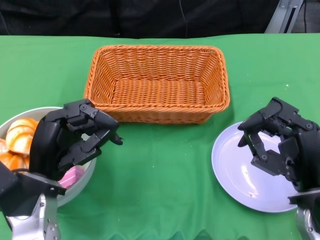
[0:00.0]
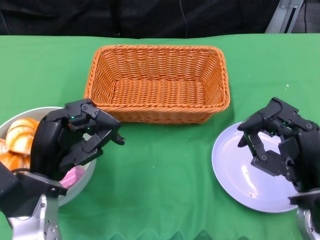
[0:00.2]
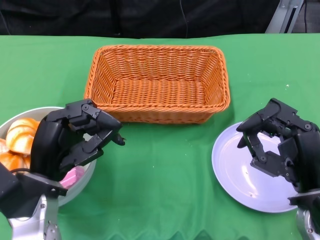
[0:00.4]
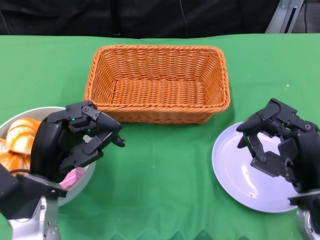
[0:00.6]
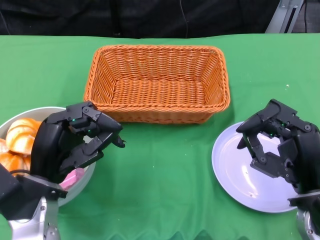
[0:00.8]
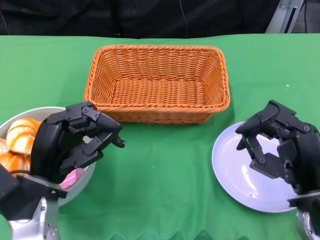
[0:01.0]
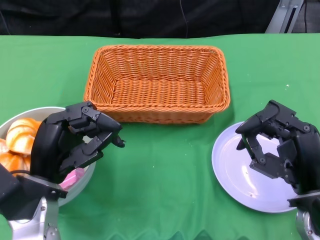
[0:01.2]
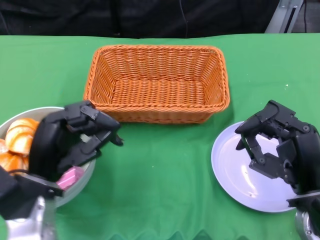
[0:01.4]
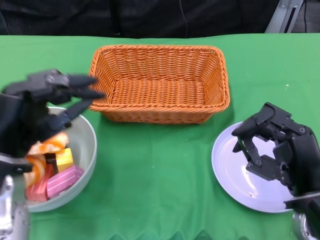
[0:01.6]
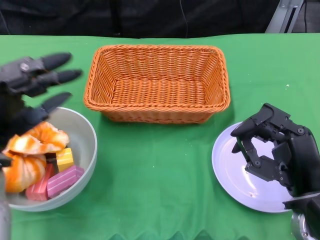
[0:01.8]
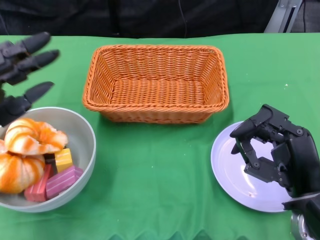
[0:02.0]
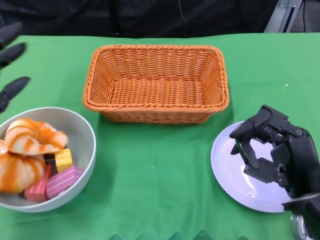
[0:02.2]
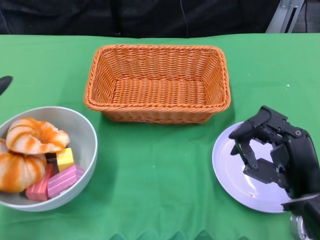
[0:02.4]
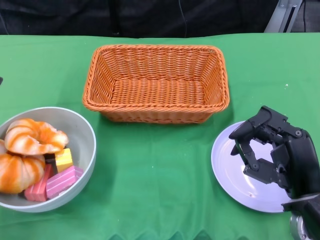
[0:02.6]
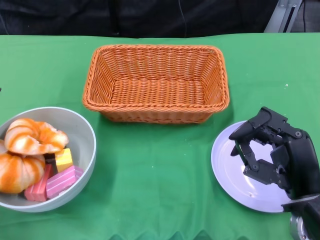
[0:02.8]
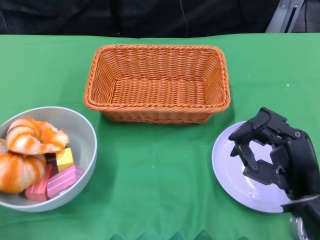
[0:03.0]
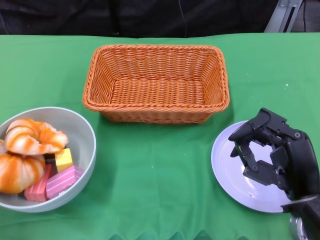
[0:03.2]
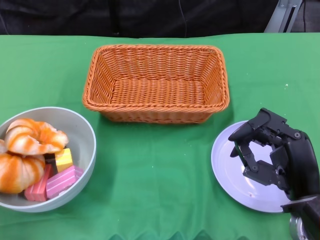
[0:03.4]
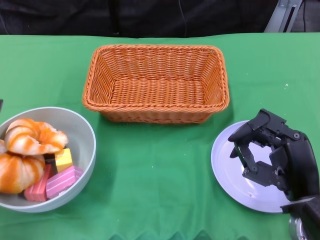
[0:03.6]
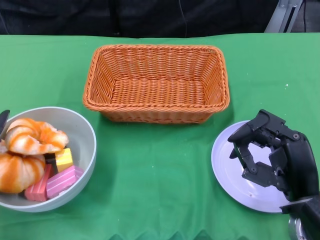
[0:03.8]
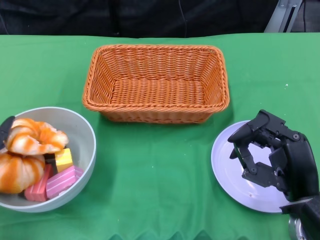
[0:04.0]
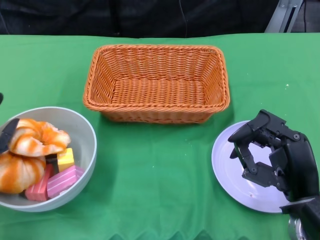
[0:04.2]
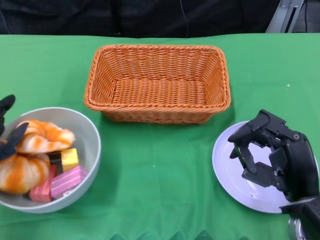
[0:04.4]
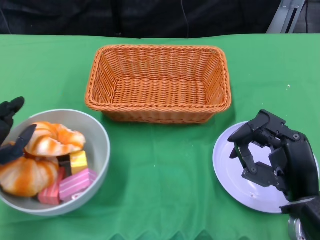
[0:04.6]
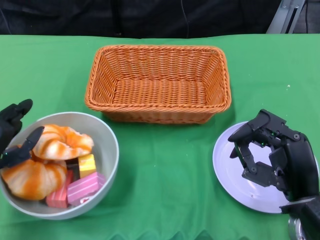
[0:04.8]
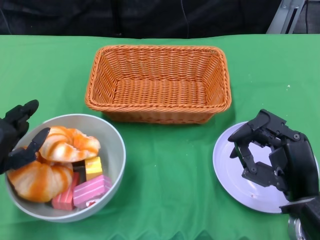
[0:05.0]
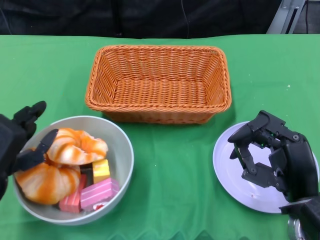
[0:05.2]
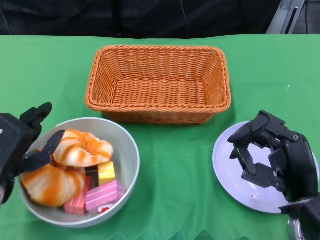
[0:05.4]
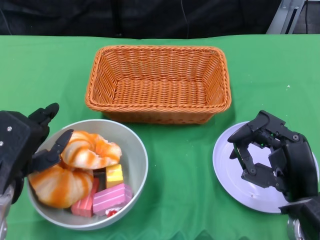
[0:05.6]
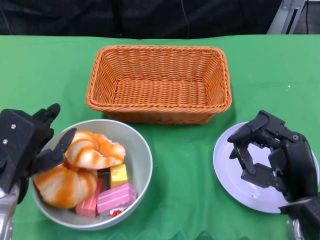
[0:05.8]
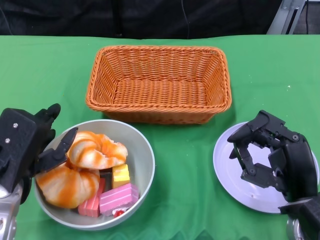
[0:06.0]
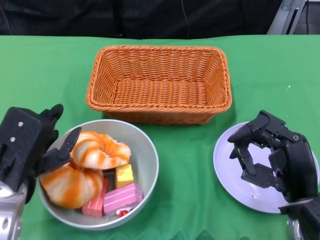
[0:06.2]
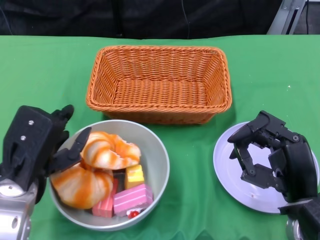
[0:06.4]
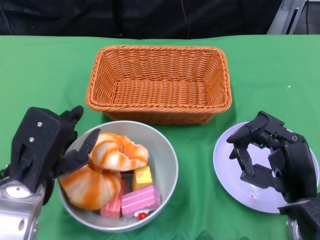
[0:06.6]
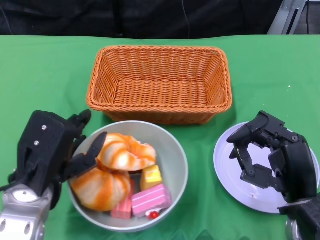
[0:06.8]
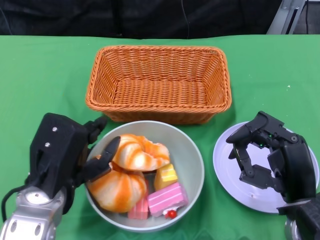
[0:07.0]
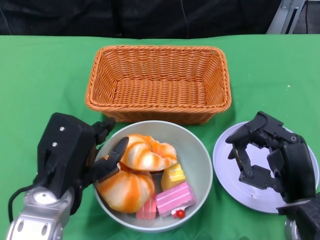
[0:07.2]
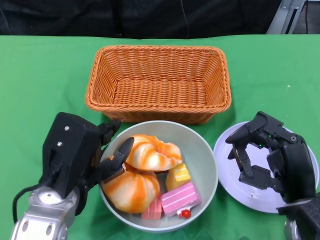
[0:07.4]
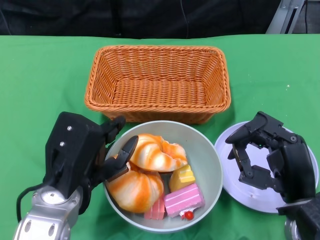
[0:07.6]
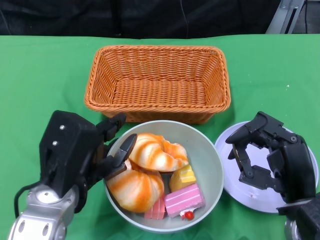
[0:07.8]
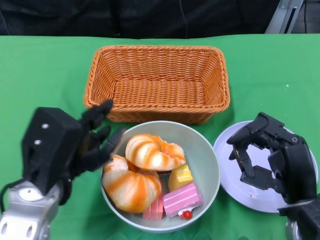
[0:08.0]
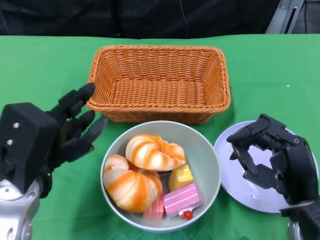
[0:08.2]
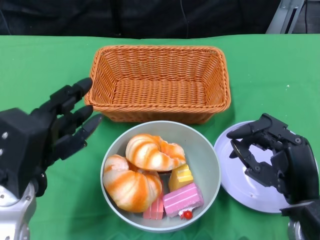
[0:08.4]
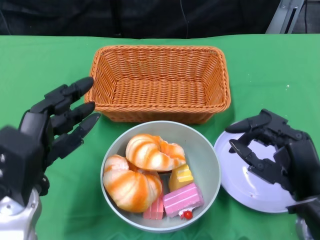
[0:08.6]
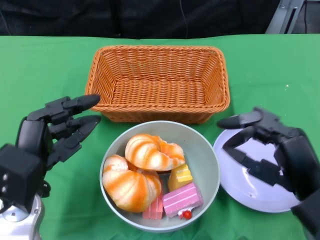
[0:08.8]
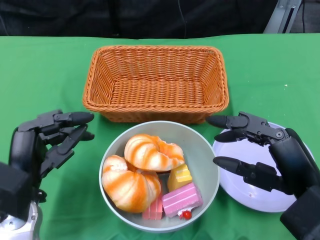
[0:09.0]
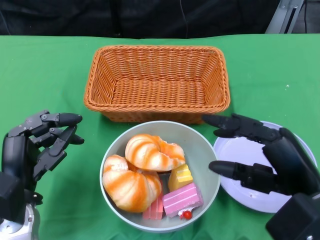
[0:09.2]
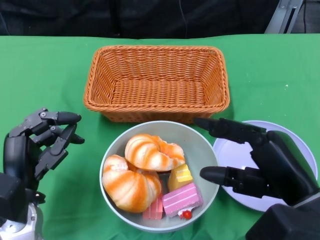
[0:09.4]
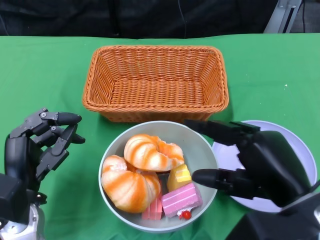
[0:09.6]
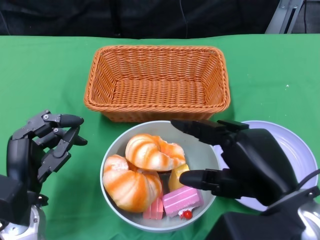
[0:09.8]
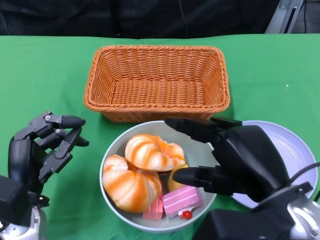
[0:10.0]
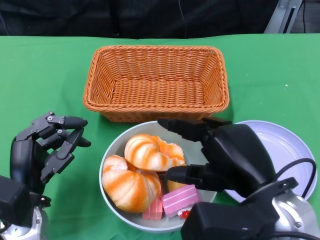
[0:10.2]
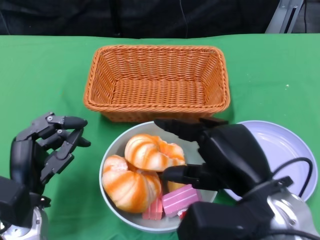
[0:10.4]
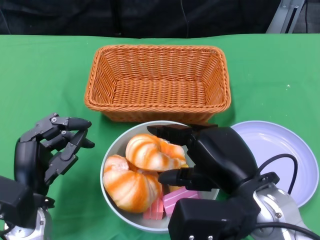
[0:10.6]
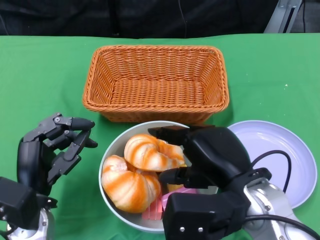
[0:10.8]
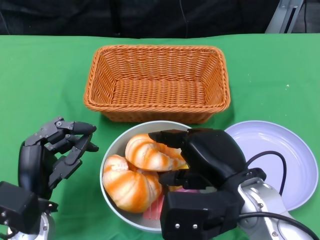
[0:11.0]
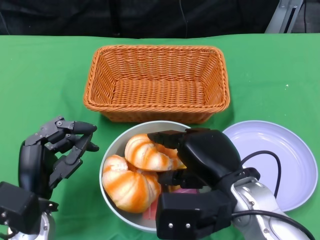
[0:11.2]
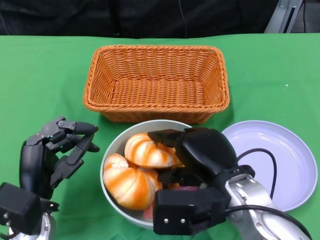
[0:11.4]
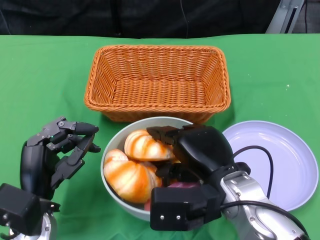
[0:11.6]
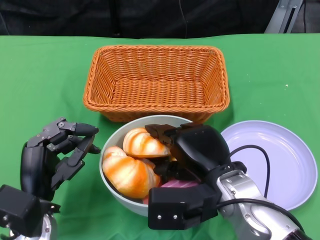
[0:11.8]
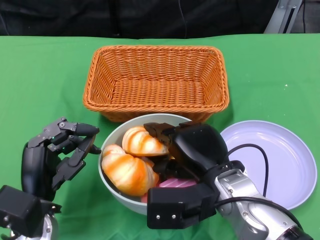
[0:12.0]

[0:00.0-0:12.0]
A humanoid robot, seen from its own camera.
Step, 0:00.0 to 0:08.4: Push the bowl to the center of the table using the left gripper.
0:01.6 to 0:03.0: The left hand travels to the left by about 10 cm.
0:03.0 to 0:04.4: The hands move only a little.
0:04.4 to 0:06.0: The left hand goes roughly 5 cm to the right.
0:06.0 to 0:07.6: The left hand heads to the right, covering approximately 5 cm.
0:07.6 to 0:09.0: The right hand ends up some 5 cm from where it was, while the left hand heads to the left and downward, covering about 10 cm.
0:09.0 to 0:10.4: The right hand goes about 5 cm to the left.
0:10.4 to 0:12.0: The right hand moves downward and forward, approximately 10 cm.

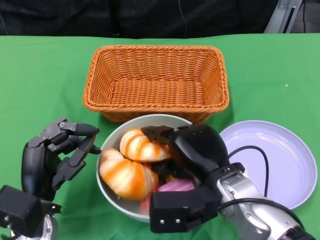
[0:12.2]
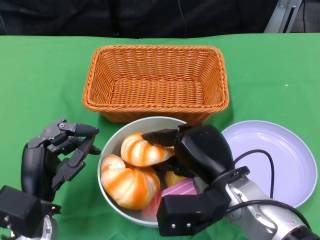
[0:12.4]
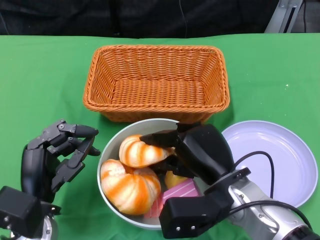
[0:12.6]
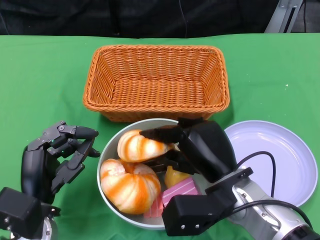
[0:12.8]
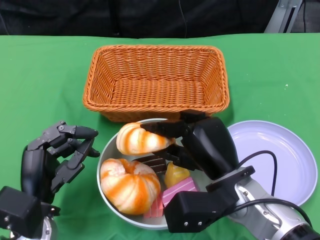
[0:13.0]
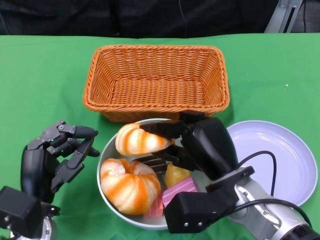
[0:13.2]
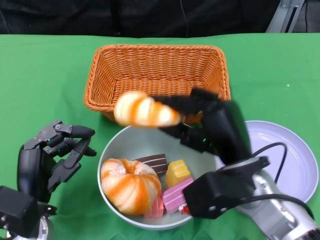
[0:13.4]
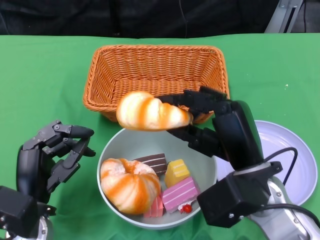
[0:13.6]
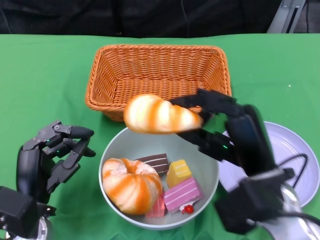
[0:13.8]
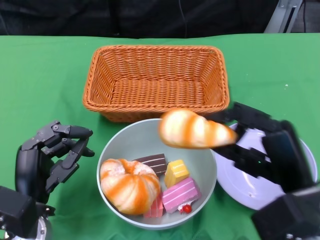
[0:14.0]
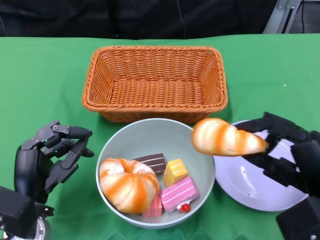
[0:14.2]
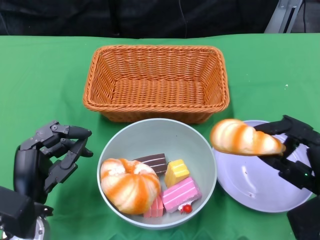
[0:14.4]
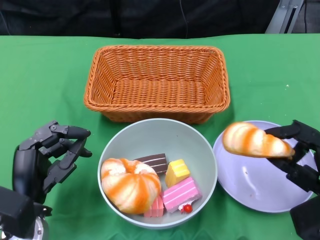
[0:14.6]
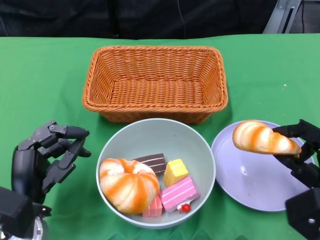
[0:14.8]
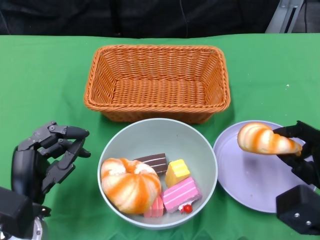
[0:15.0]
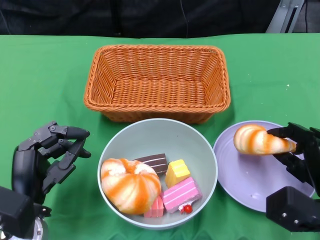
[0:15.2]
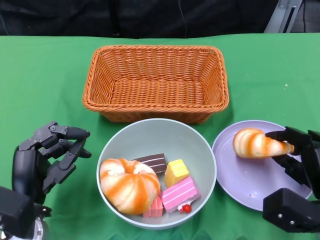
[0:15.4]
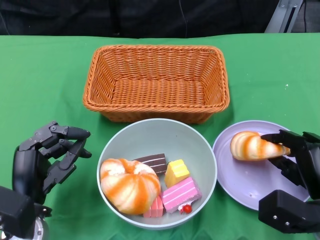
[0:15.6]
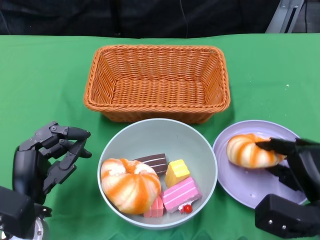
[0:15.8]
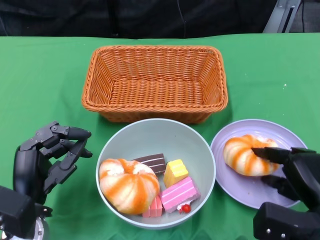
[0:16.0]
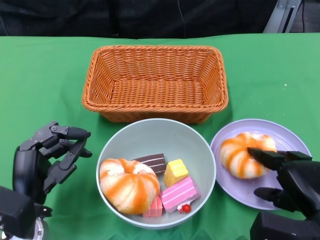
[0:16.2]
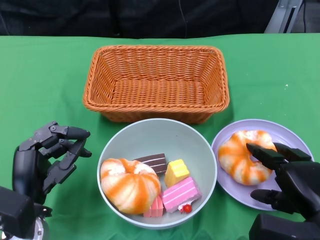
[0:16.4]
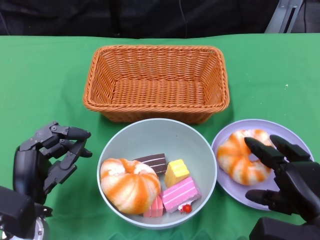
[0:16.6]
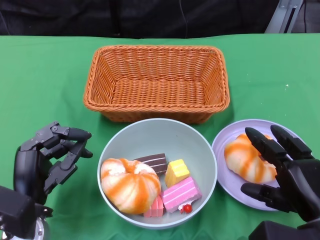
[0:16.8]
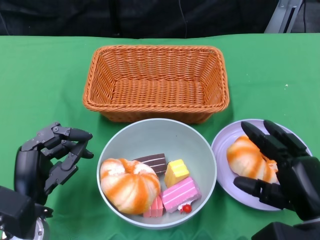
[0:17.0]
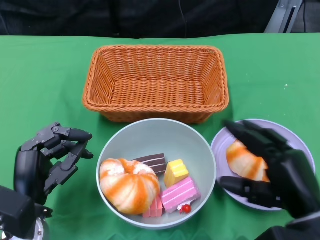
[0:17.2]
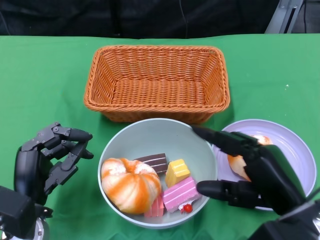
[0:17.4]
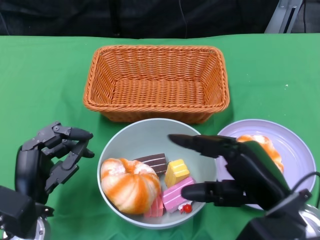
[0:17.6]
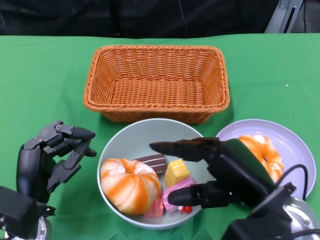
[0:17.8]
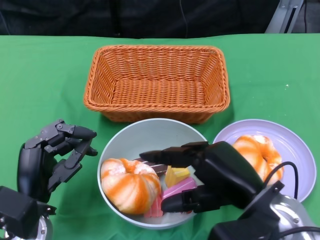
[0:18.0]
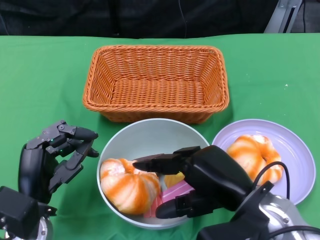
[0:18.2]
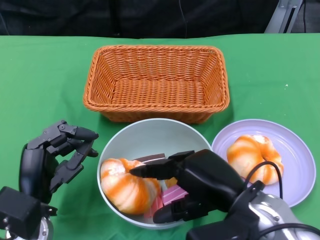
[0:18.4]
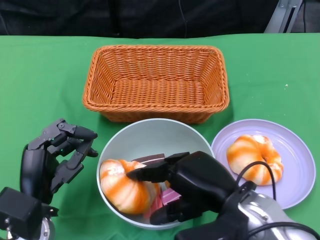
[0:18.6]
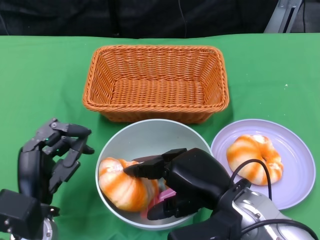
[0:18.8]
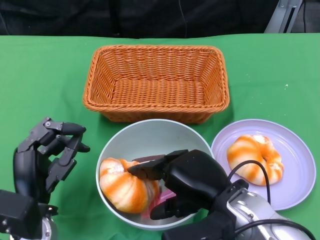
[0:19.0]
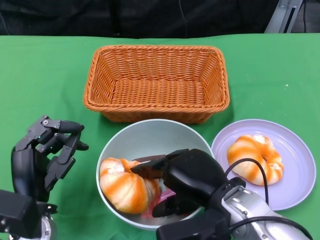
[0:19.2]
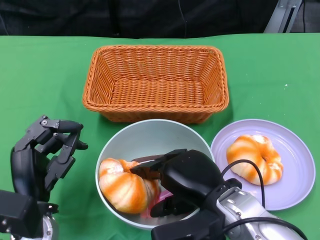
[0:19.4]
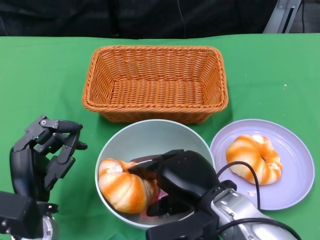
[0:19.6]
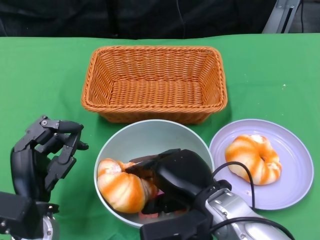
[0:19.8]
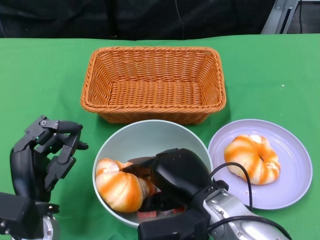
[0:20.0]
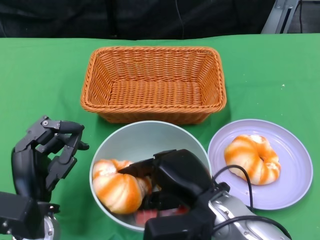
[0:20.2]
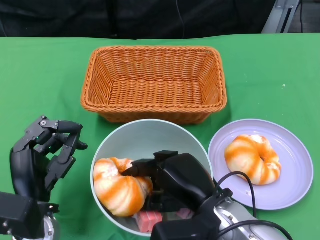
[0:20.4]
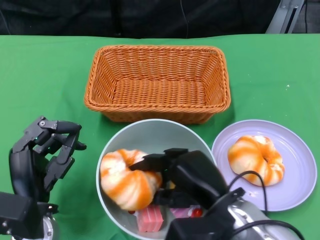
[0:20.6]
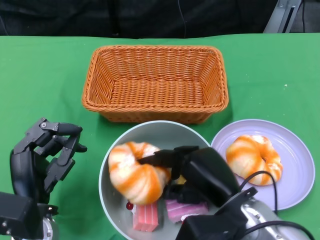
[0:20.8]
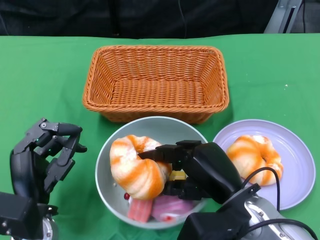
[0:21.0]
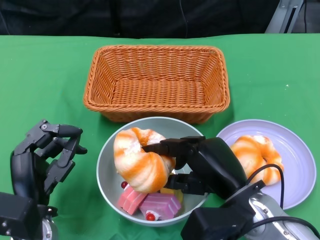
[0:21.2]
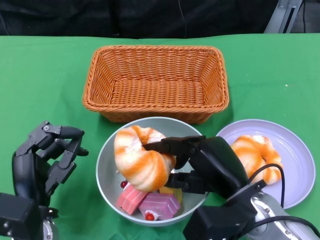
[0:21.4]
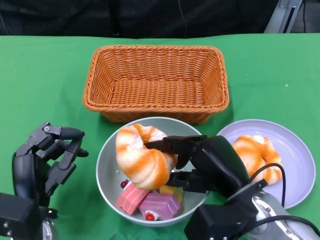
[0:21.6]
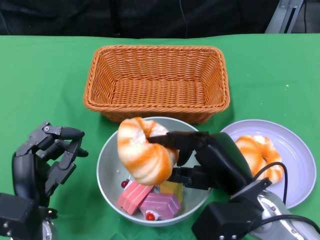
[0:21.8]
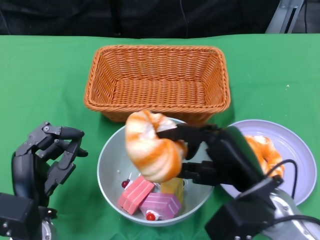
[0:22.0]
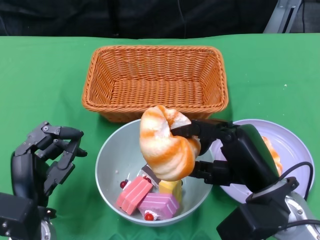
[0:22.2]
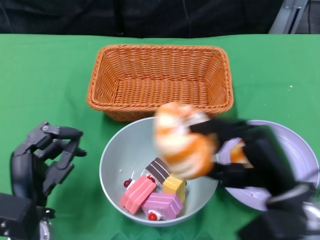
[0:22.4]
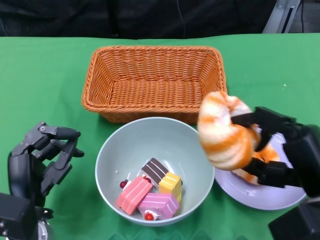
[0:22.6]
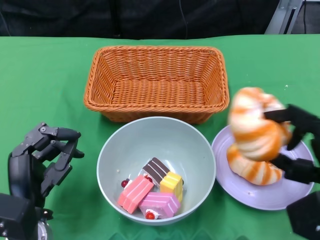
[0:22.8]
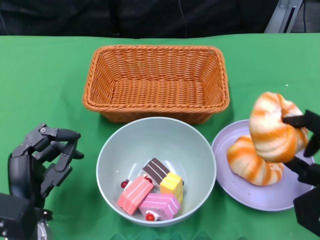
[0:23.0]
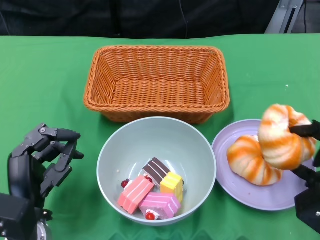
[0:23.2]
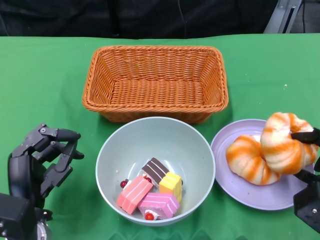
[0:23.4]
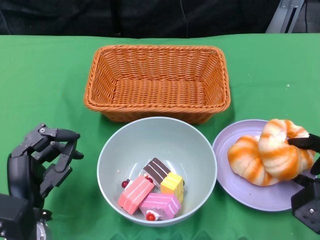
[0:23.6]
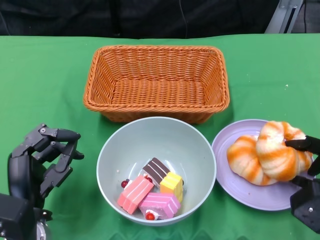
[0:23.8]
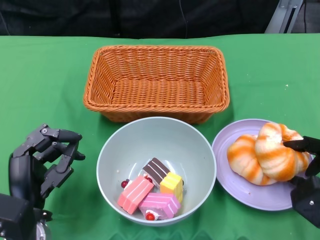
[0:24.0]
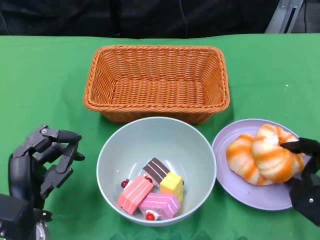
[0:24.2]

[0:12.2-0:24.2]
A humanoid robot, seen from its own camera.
0:12.2 to 0:13.8: The right hand changes place by some 5 cm.
0:13.8 to 0:15.2: The right hand is displaced to the right and downward by some 15 cm.
0:16.6 to 0:18.2: The right hand goes some 10 cm to the left and upward.
0:18.2 to 0:19.8: The right hand is displaced to the left by some 5 cm.
0:21.2 to 0:22.6: The right hand moves to the right, about 10 cm.
0:22.6 to 0:24.2: The right hand shifts roughly 10 cm downward and to the right.
